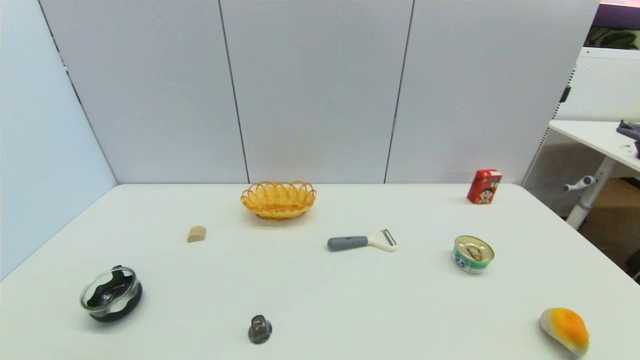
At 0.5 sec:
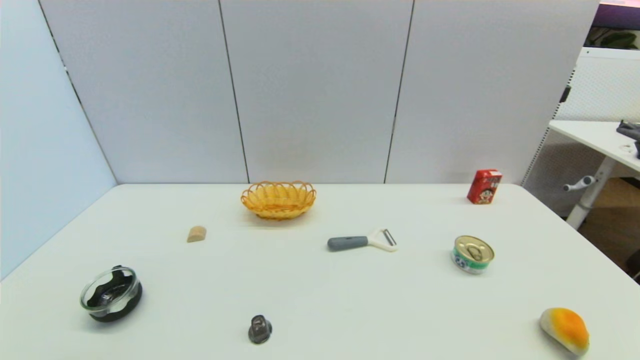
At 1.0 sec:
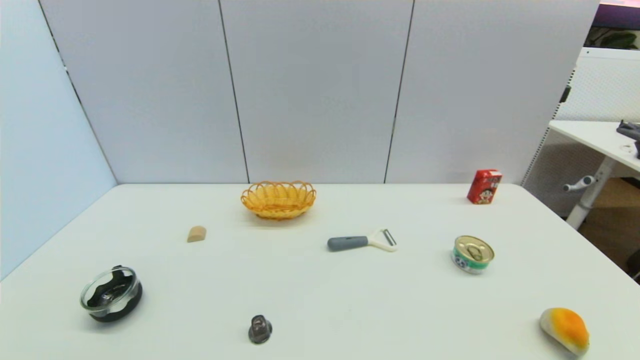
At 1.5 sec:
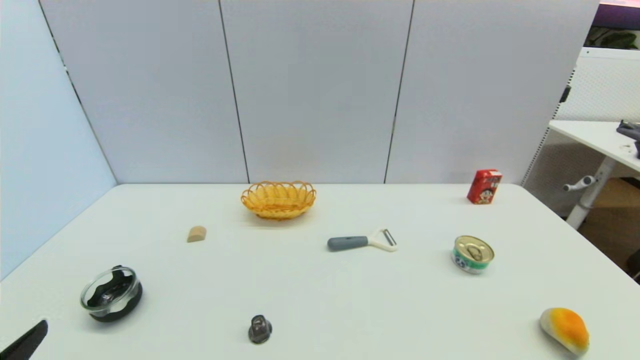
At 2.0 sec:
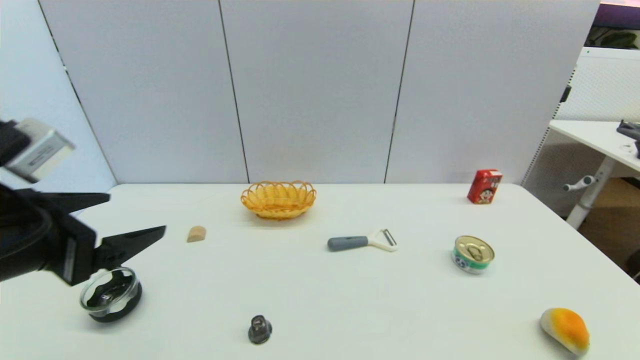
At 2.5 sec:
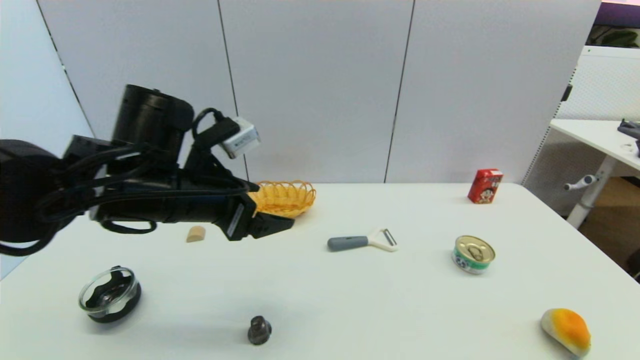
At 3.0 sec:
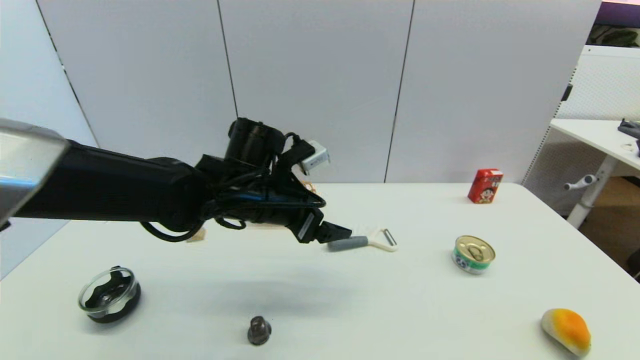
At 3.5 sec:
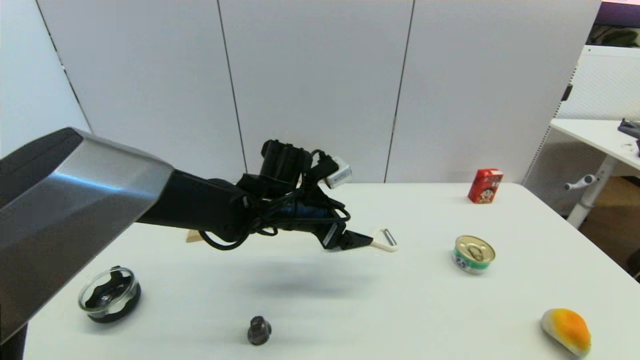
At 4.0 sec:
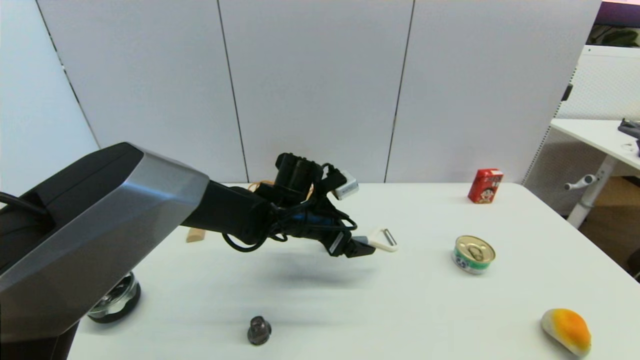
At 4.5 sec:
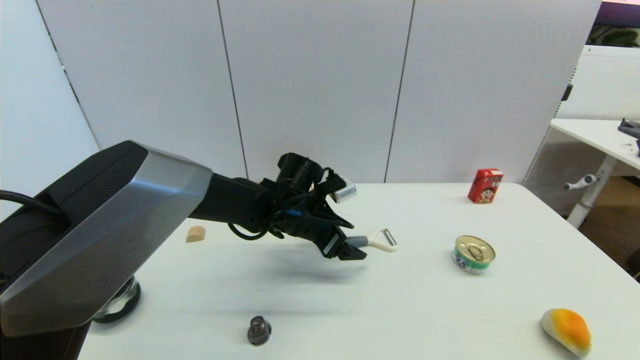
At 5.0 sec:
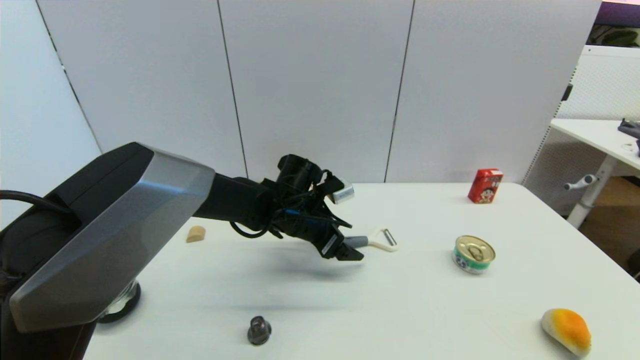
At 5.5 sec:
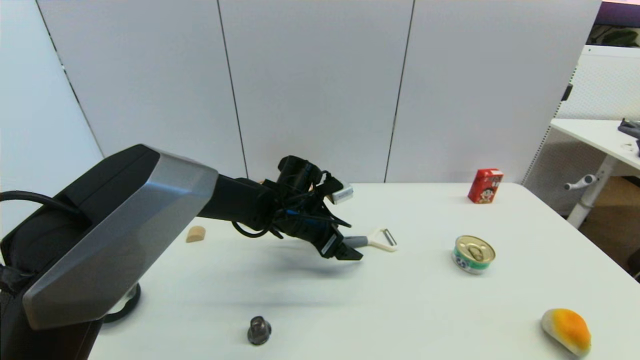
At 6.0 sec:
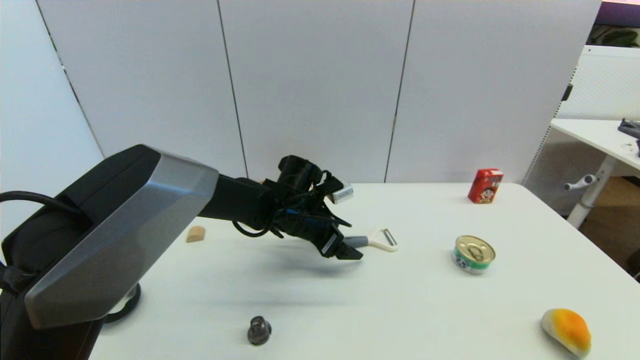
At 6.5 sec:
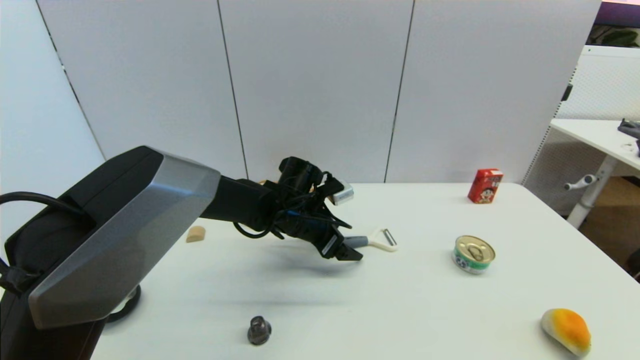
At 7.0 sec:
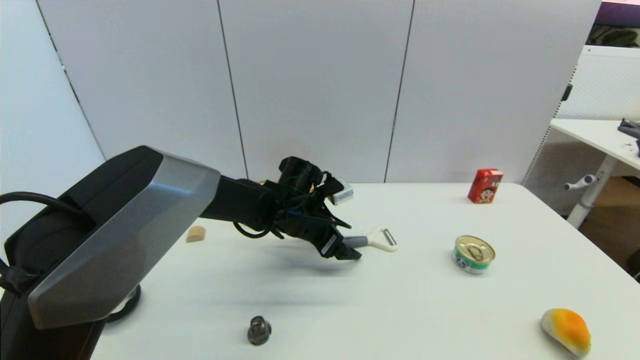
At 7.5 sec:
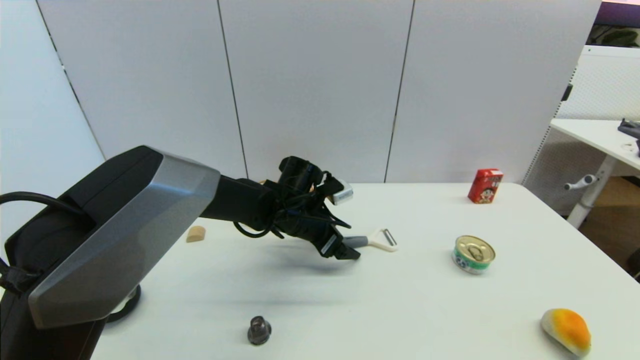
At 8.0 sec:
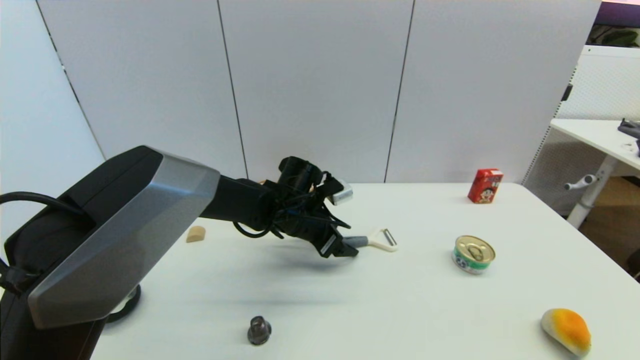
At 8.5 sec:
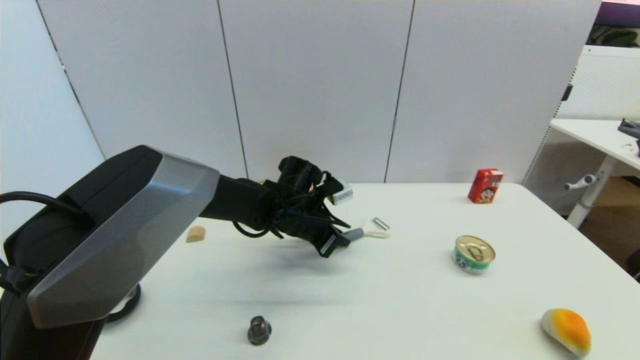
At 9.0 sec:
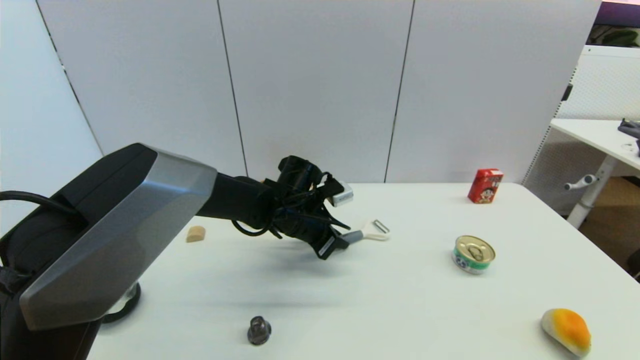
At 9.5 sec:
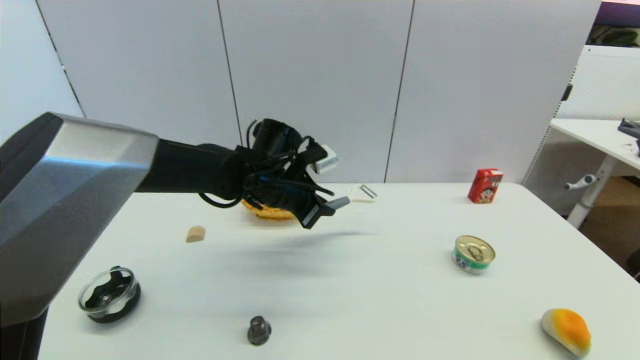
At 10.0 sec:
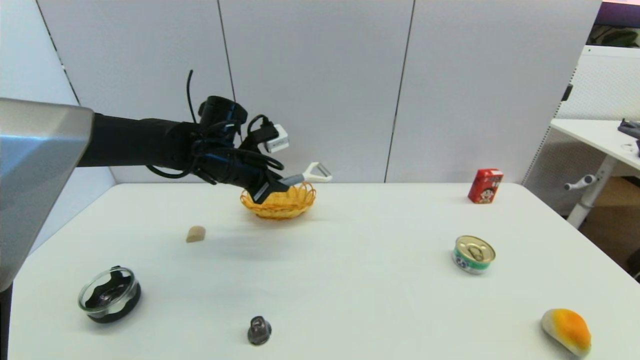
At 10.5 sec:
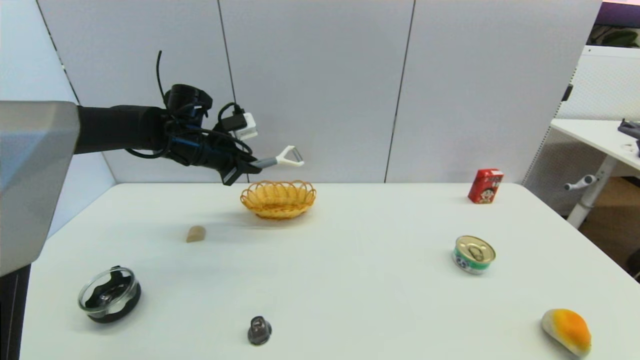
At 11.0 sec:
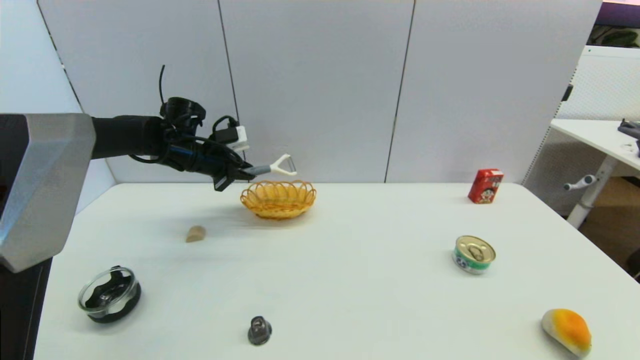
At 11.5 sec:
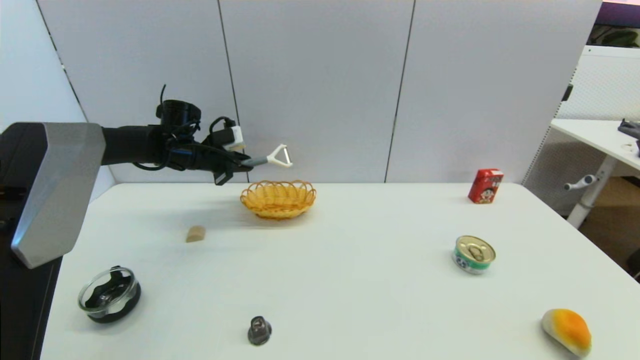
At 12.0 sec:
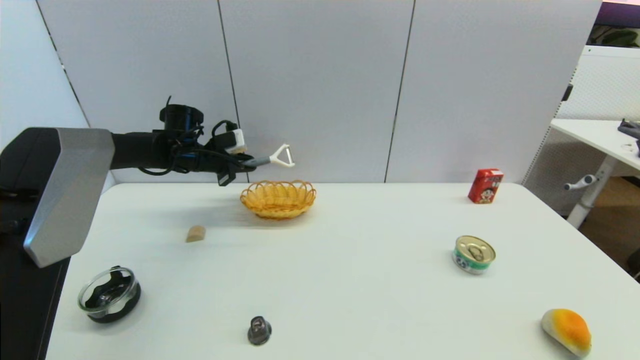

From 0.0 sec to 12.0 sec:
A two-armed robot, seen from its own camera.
Step, from 1.5 sec to 9.0 sec: Grasp the peeler with left gripper.
From 0.0 sec to 2.0 sec: The left gripper goes some 25 cm upward and forward.
From 2.0 sec to 4.0 sec: The left gripper goes roughly 35 cm to the right, forward and downward.
From 4.0 sec to 6.0 sec: The grippers make only small movements.
From 6.0 sec to 8.0 sec: The two grippers keep their place.
From 8.0 sec to 10.0 sec: The left gripper is displaced to the left and upward by roughly 15 cm, and closes its fingers.
From 10.0 sec to 12.0 sec: The left gripper shifts about 15 cm to the left and forward.

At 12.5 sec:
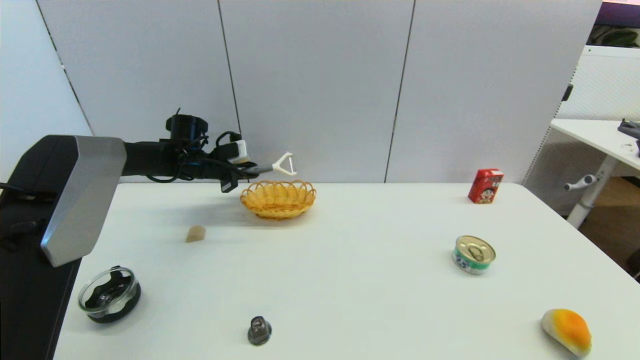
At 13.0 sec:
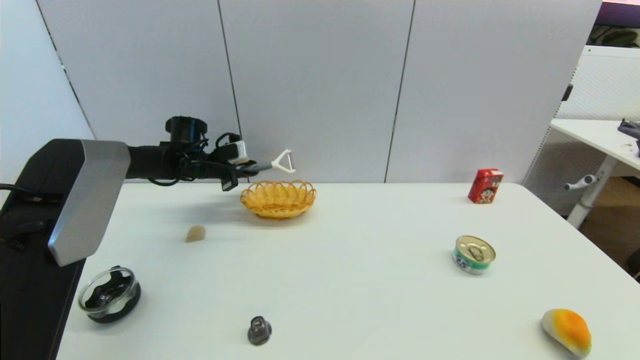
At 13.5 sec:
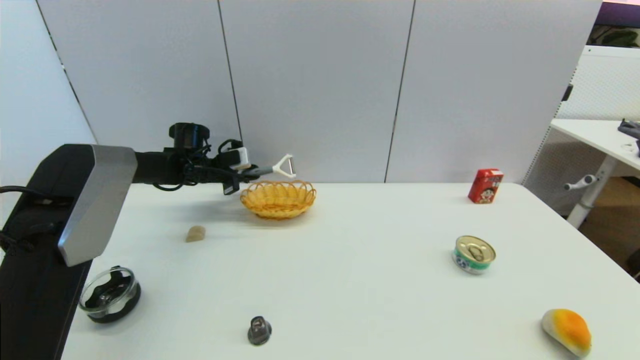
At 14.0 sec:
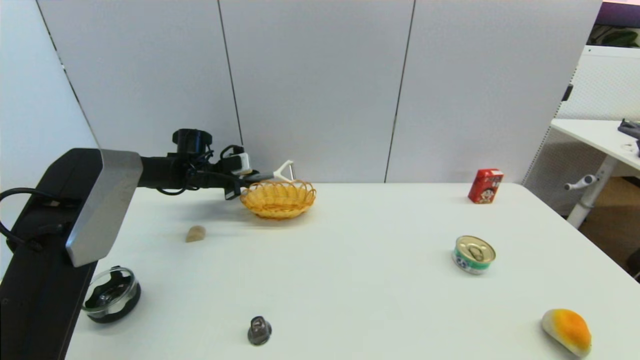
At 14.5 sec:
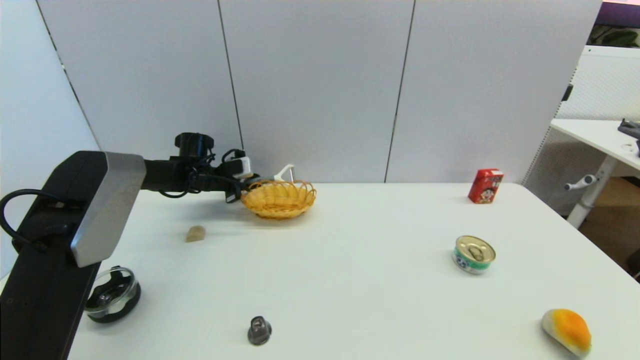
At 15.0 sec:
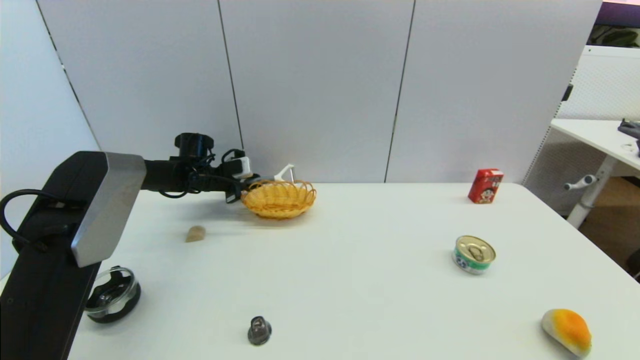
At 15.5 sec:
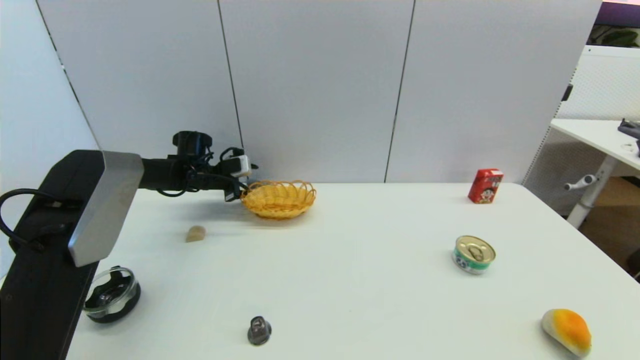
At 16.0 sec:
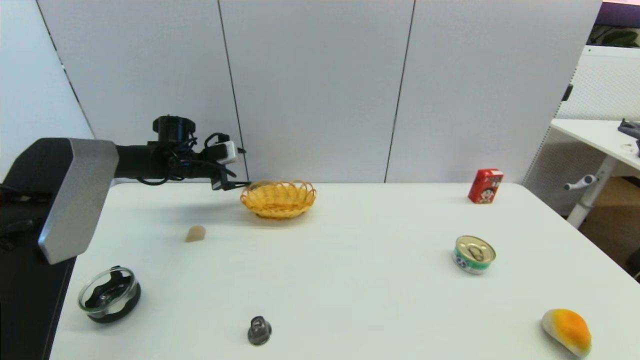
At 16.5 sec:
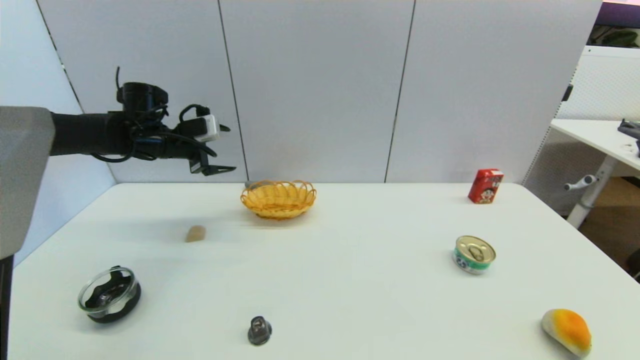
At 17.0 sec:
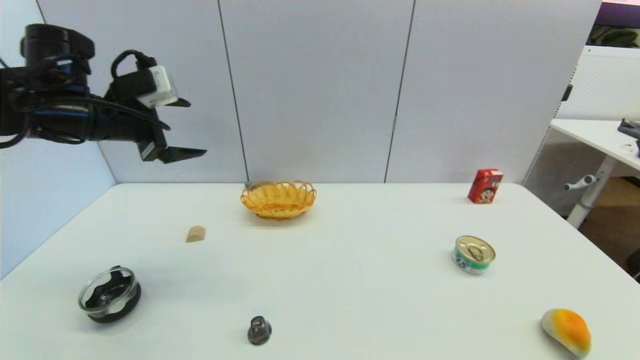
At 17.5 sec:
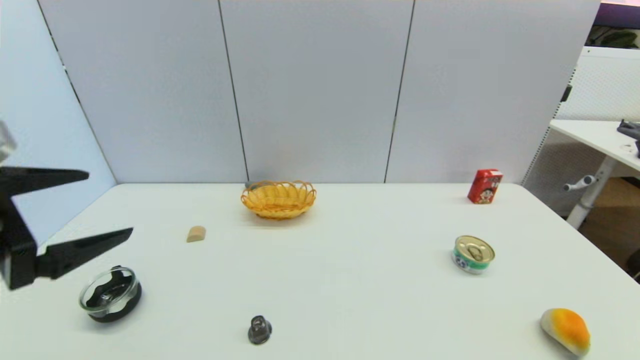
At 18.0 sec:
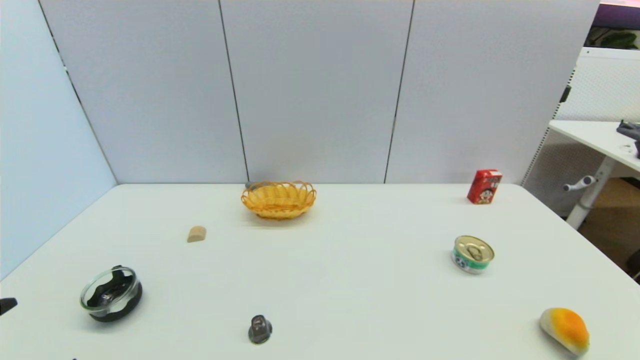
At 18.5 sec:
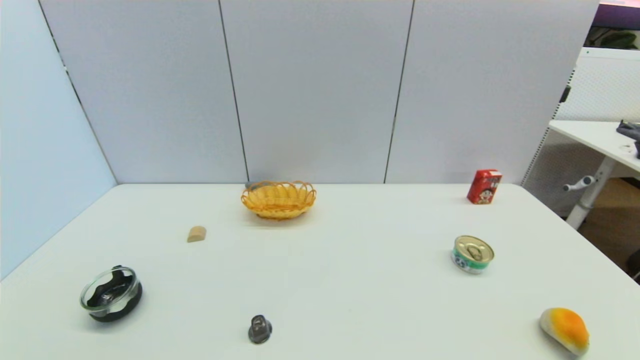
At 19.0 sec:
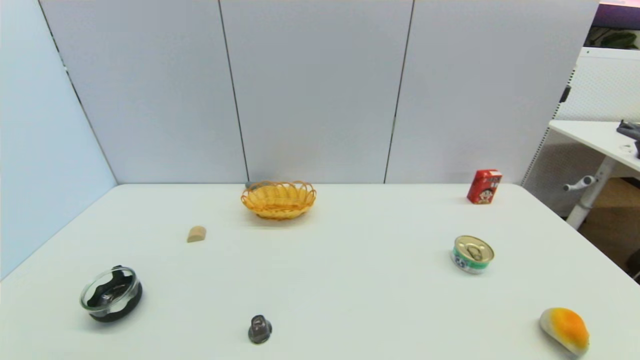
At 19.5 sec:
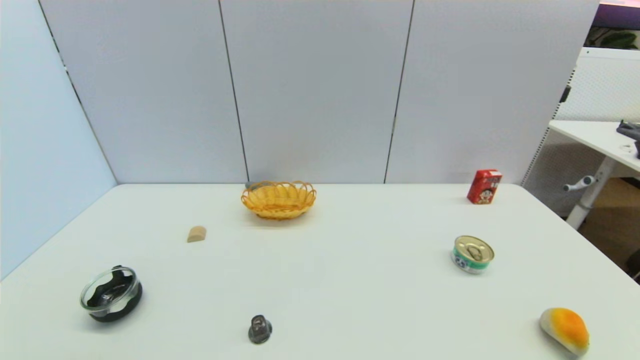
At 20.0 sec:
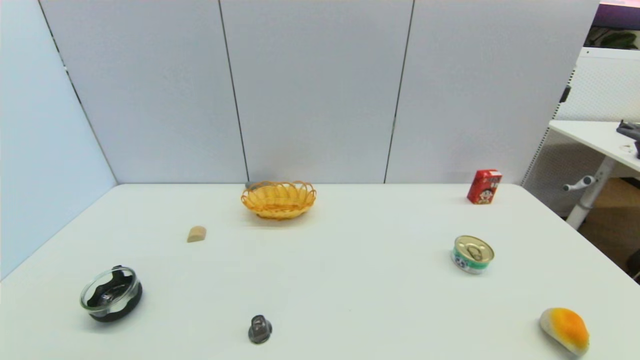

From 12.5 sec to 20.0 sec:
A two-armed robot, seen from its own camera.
Step, from 12.5 sec to 15.5 sec: Place the peeler on the table with left gripper.
From 12.5 sec to 14.5 sec: The grippers stay close to where they were, moving slightly.
From 14.5 sec to 16.5 sec: The left gripper shifts some 15 cm upward and backward, and opens up.
From 16.5 sec to 18.0 sec: The left gripper shifts some 40 cm backward.
